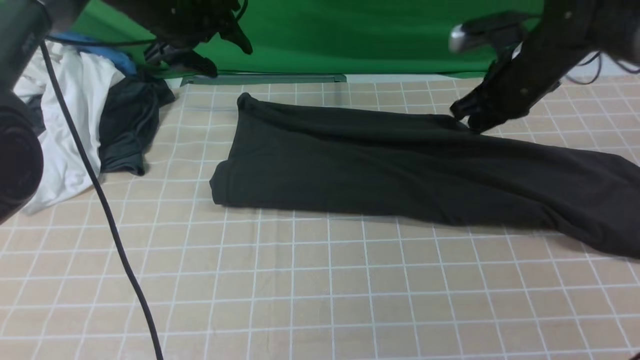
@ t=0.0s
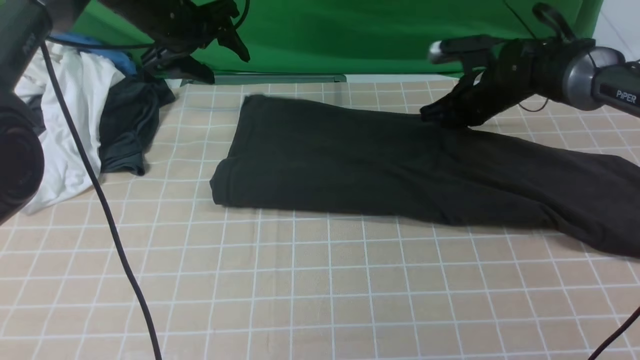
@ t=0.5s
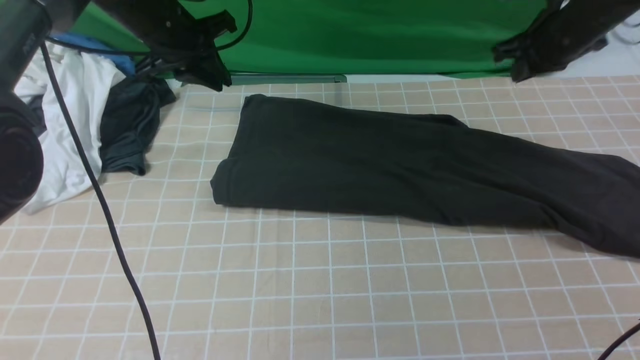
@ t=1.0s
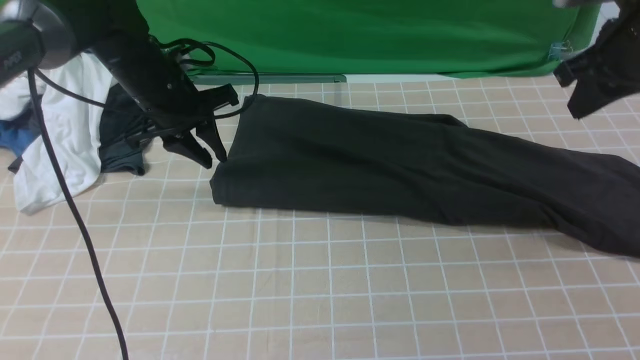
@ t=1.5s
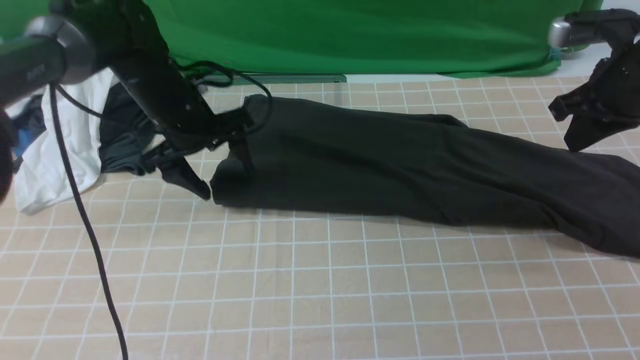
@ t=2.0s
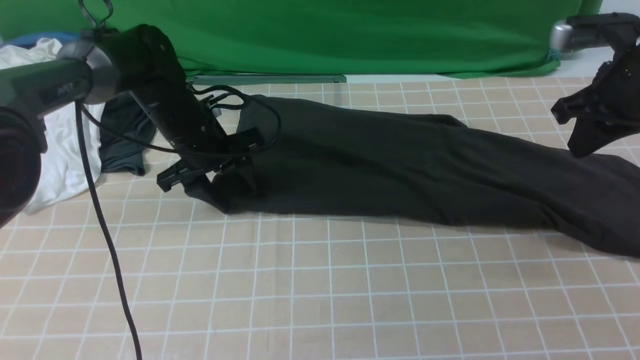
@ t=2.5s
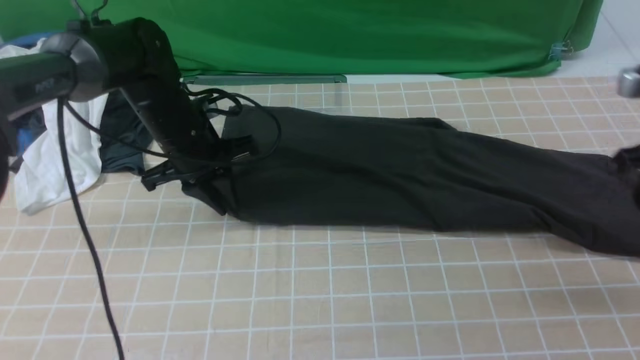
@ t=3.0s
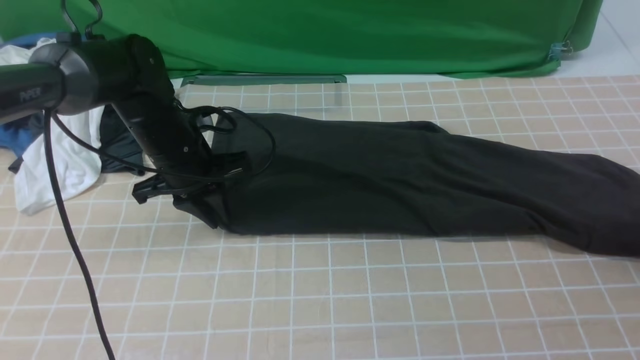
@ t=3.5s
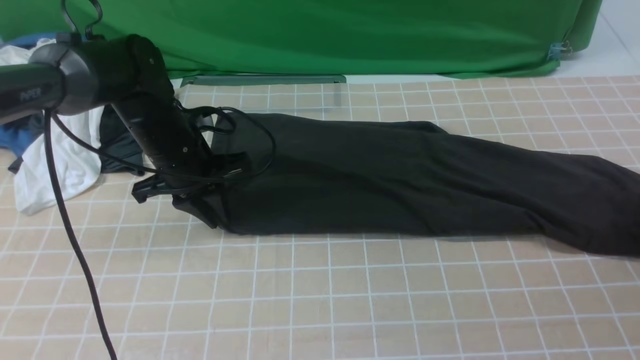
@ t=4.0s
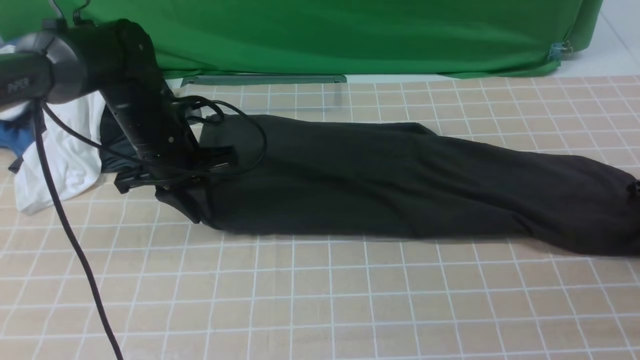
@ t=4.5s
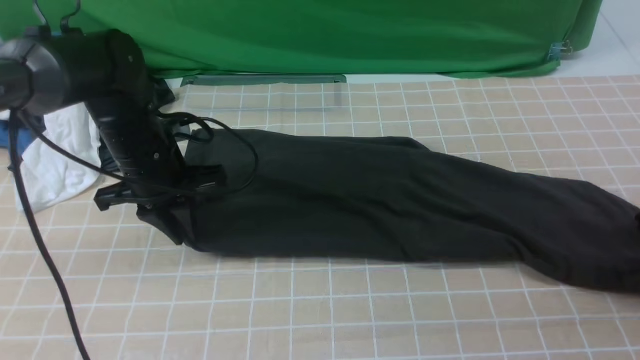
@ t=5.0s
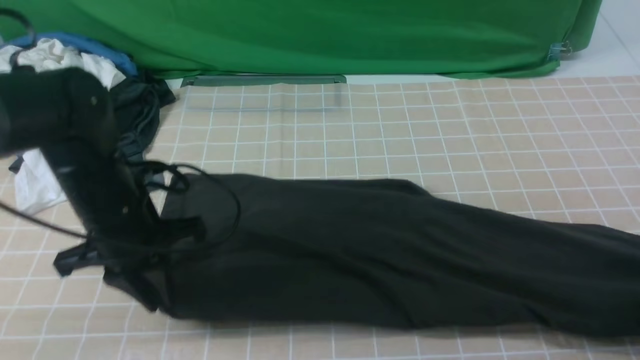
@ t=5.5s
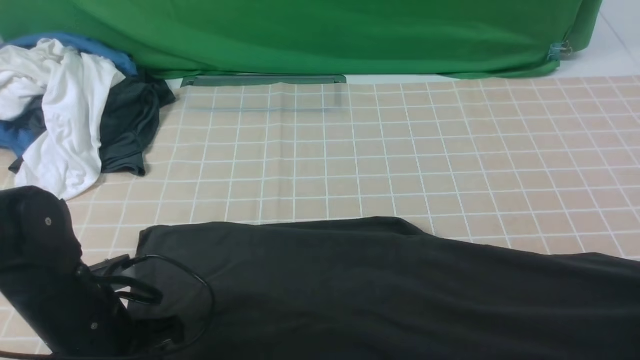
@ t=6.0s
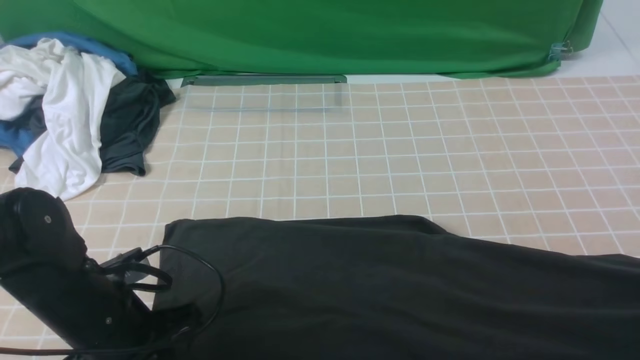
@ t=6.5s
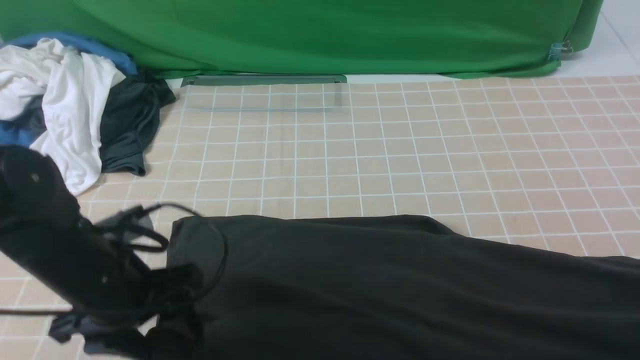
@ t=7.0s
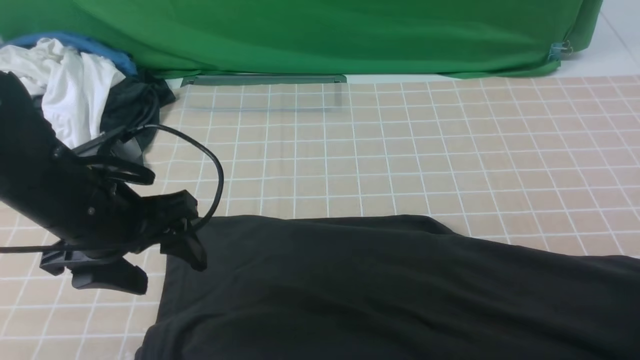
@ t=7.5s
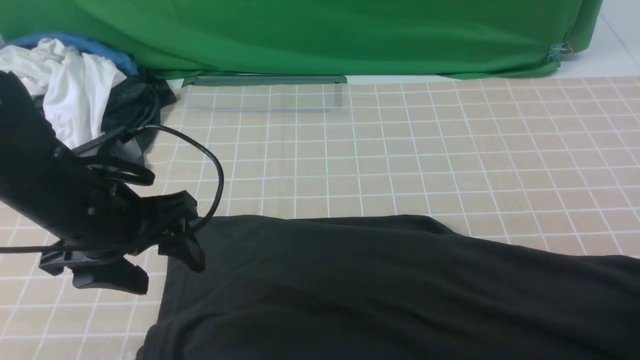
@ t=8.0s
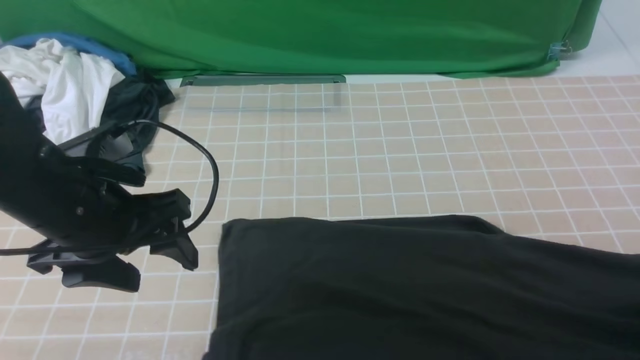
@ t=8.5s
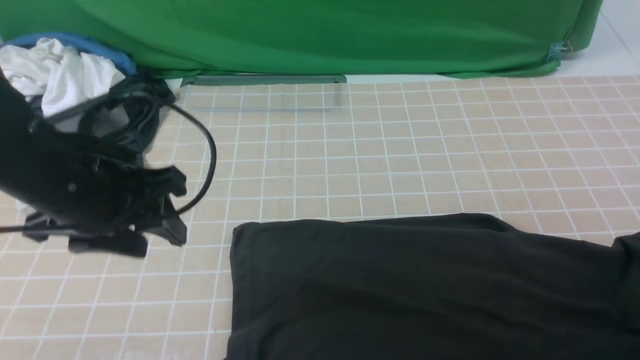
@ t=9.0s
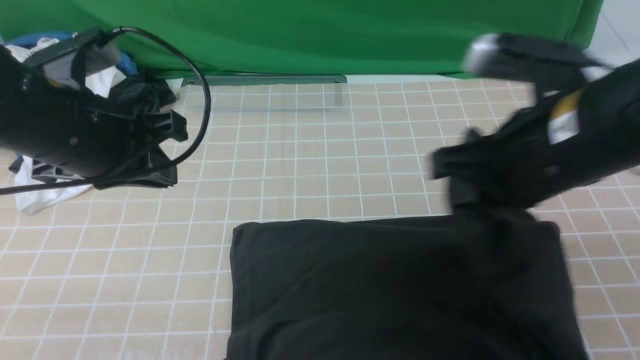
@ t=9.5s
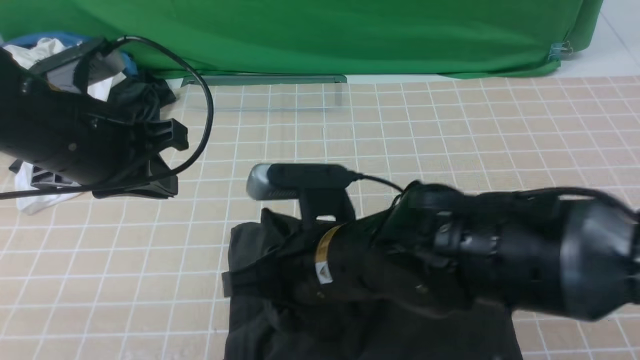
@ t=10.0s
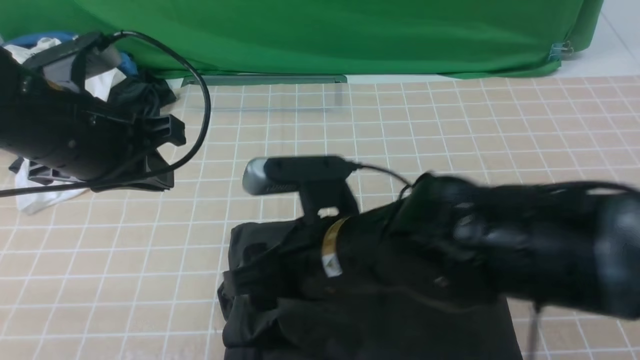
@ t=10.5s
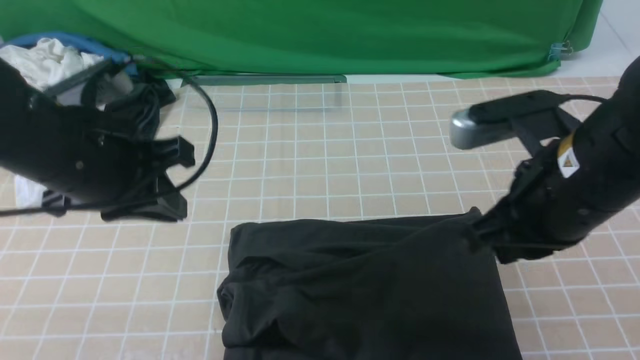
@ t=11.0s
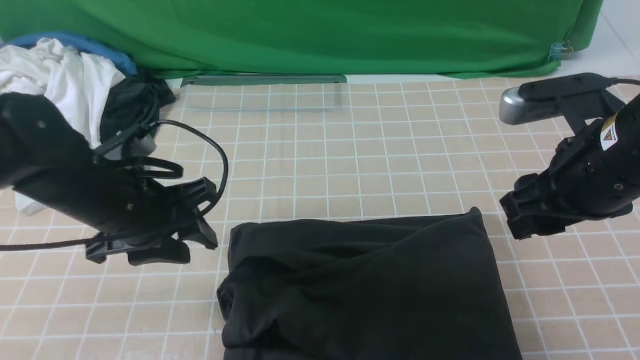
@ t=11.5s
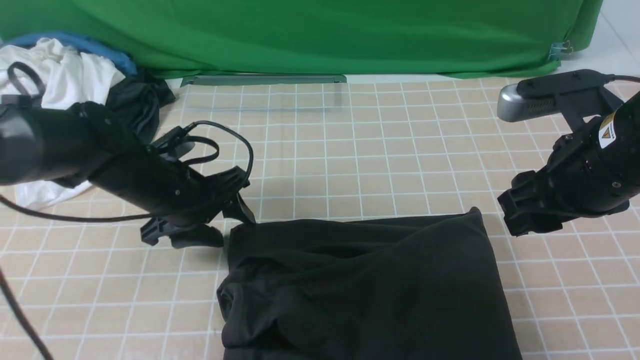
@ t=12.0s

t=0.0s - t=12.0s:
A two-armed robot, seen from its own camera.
Step, t=1.0s - t=8.0s: use the right arm to clamp the right edge of the fabric.
Step, t=8.5s - t=10.0s: use the right arm to drag the right edge of the fabric to the left and folds it over the left edge.
t=0.0s - t=2.0s: The left gripper is displaced backward and downward by about 10 cm, and closes, then reopens, while the right gripper moves to the right, backward and upward, some 10 cm.
t=2.0s - t=4.0s: The right gripper heads to the right and downward, covering approximately 20 cm, and opens. The left gripper closes.
t=4.0s - t=6.0s: The left gripper heads backward, covering some 20 cm. The right gripper moves backward and upward, approximately 10 cm, and closes up.
t=6.0s - t=8.0s: The right gripper moves downward, roughly 5 cm, and opens its fingers. Meanwhile the left gripper moves upward, roughly 10 cm, and opens up.
t=8.0s - t=10.0s: The right gripper moves to the left, about 40 cm; the left gripper heads upward, covering approximately 5 cm, and closes up.
t=10.0s - t=12.0s: The left gripper is displaced downward and forward by about 15 cm, and opens its fingers. Meanwhile the right gripper moves to the right, roughly 20 cm, and opens its fingers.

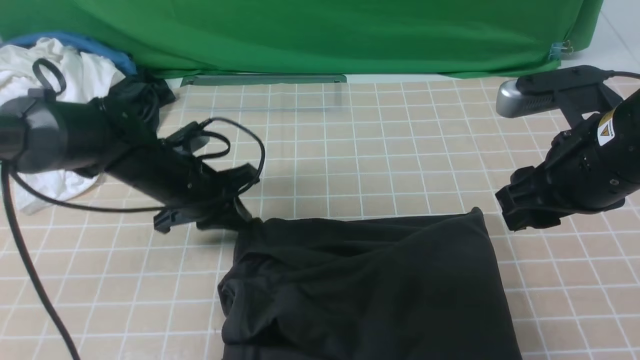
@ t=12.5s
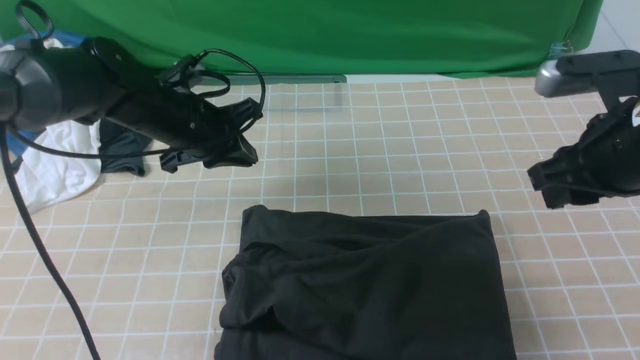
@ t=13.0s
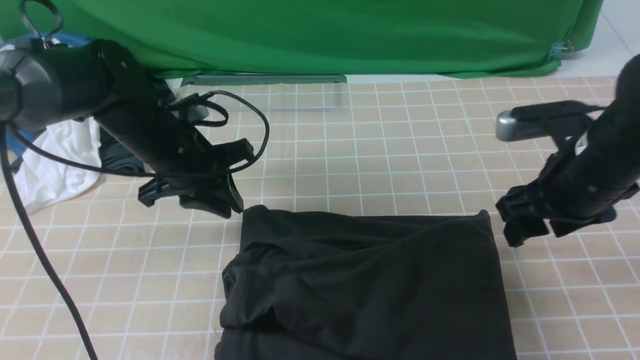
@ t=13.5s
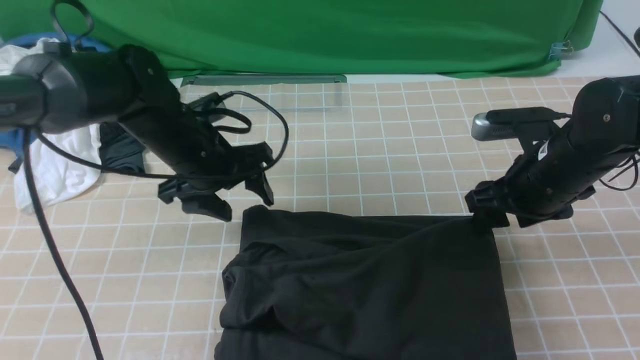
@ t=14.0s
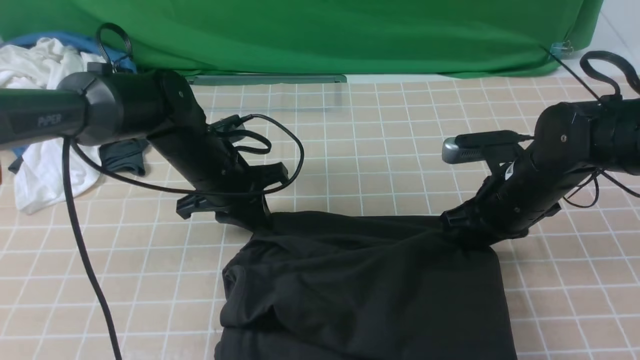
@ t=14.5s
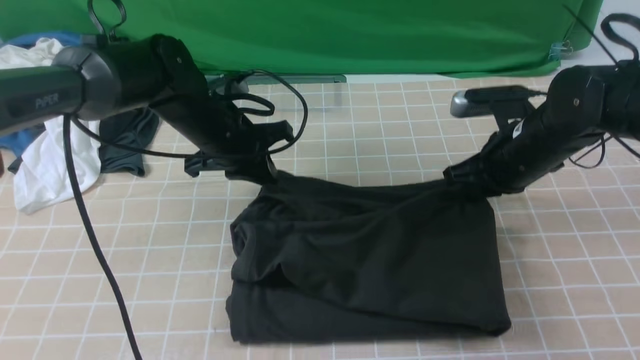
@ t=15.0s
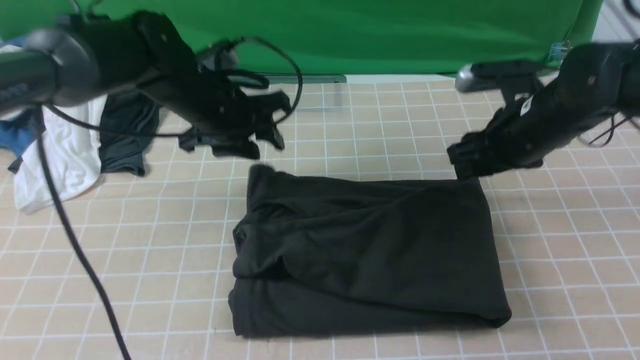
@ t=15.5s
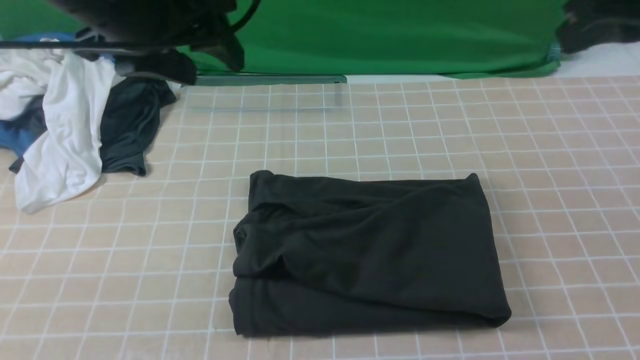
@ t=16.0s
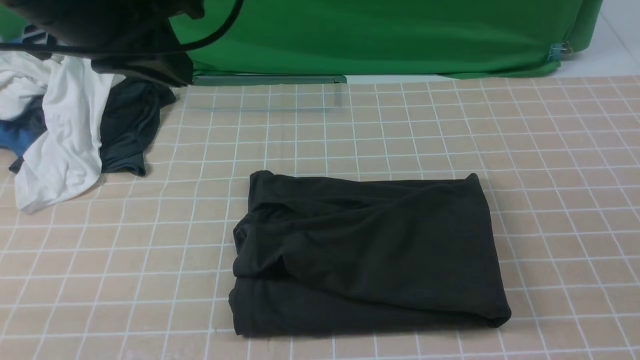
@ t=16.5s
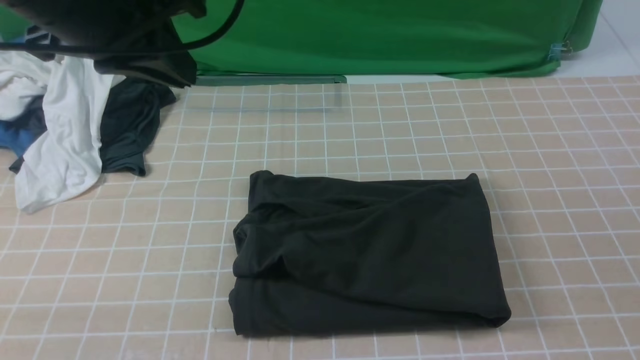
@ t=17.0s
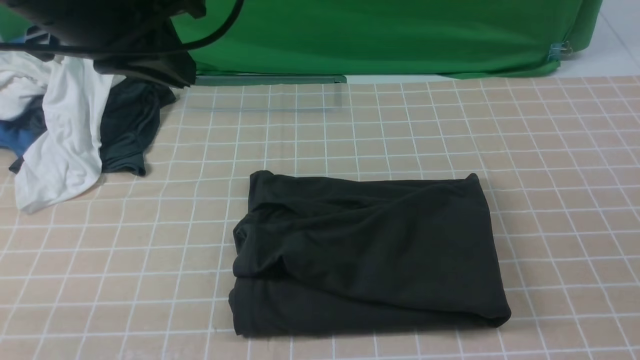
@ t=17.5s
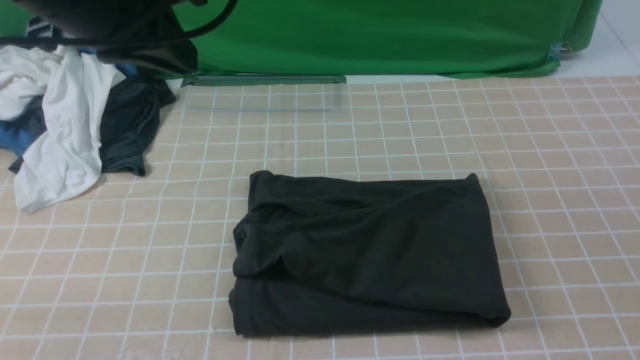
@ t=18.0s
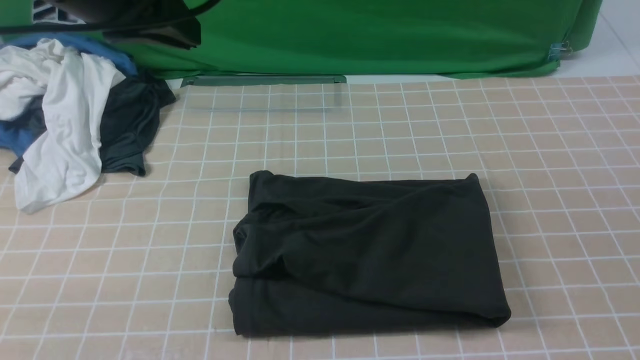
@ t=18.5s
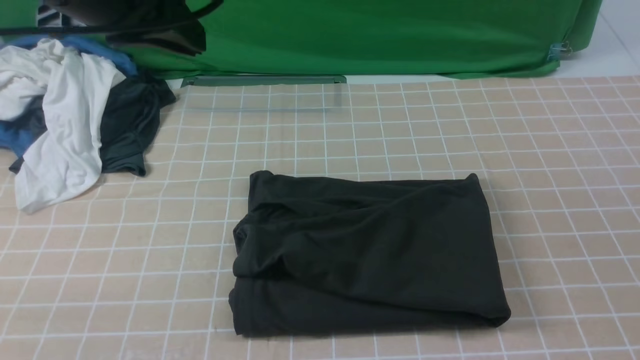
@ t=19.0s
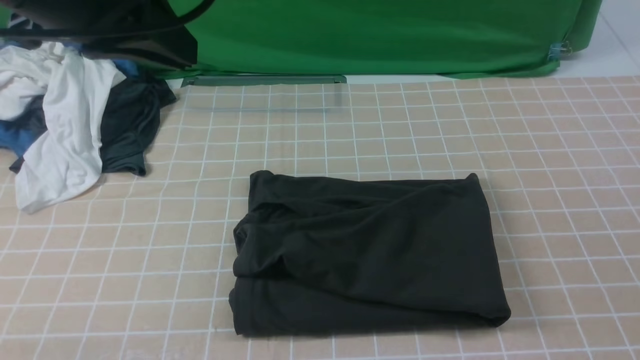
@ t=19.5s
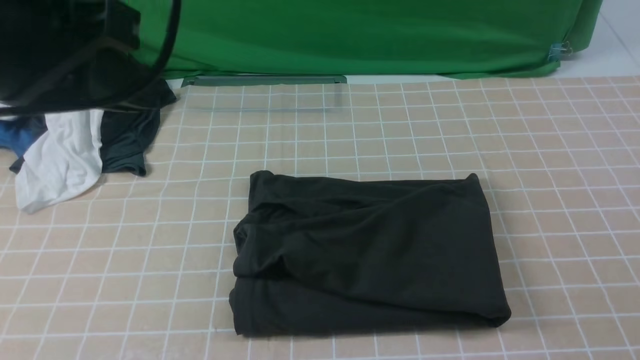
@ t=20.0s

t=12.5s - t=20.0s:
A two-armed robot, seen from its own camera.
t=12.5s - t=14.5s: The left gripper opens, then closes once more. Meanwhile the right gripper heads downward and forward, covering about 15 cm.
t=14.5s - t=16.5s: The left gripper heads upward, covering roughly 25 cm, and opens, then closes again. Meanwhile the right gripper travels upward and backward by roughly 35 cm, and closes up.
t=18.0s - t=20.0s: The left gripper travels backward by approximately 10 cm.
